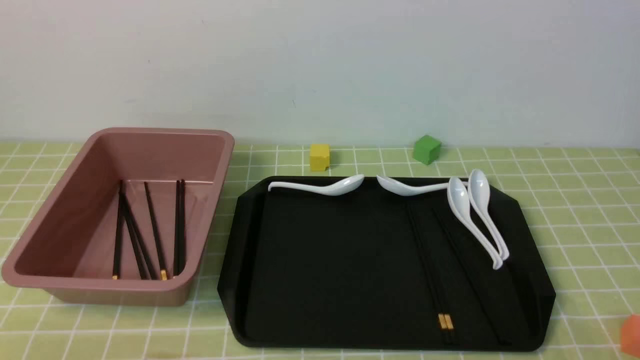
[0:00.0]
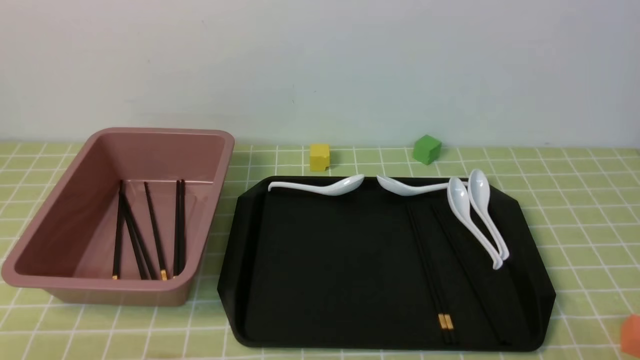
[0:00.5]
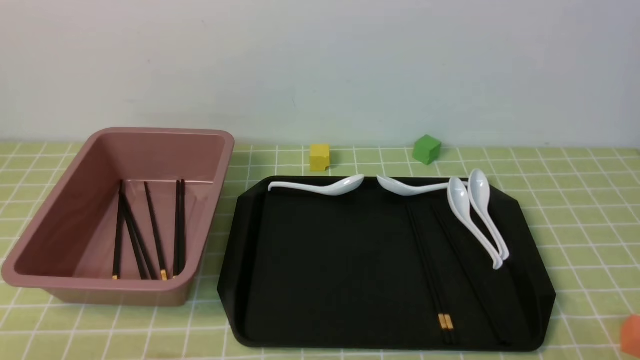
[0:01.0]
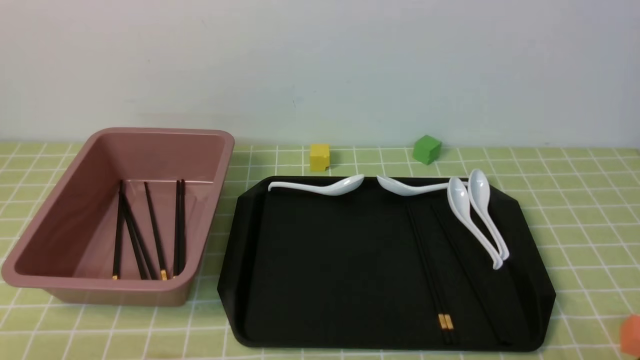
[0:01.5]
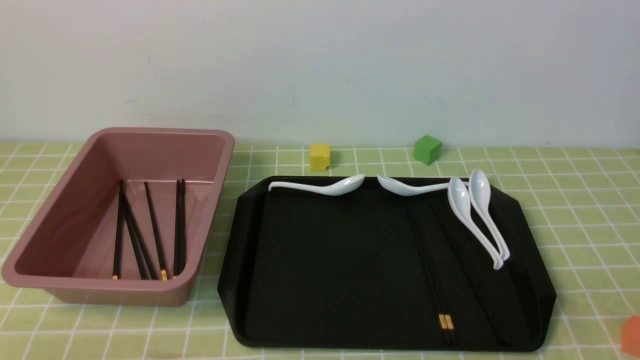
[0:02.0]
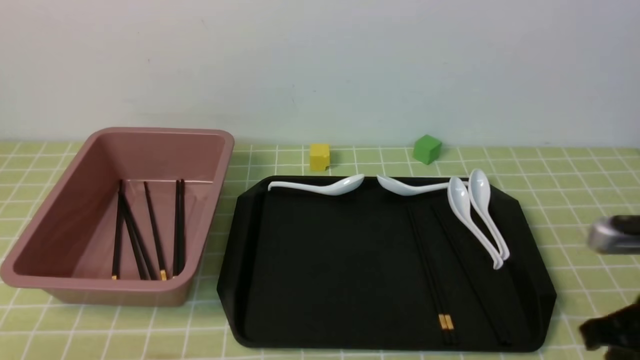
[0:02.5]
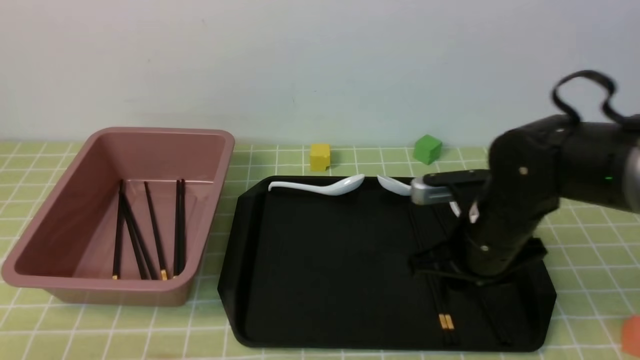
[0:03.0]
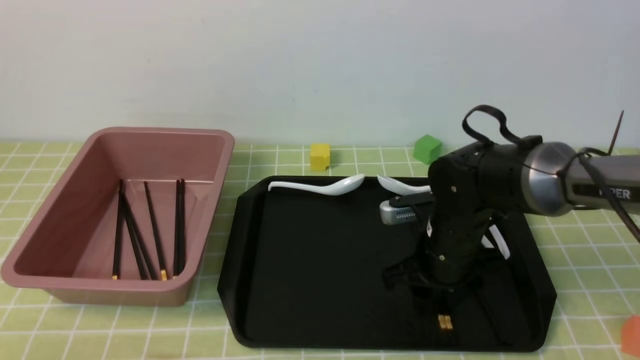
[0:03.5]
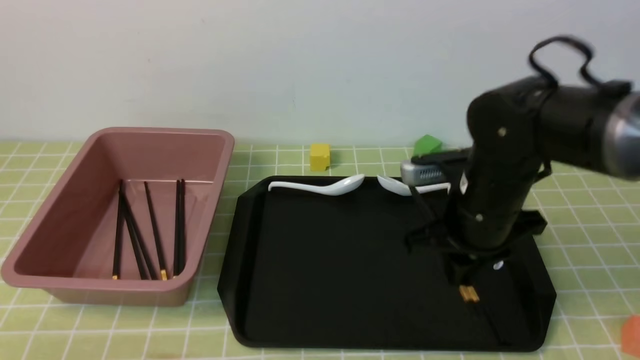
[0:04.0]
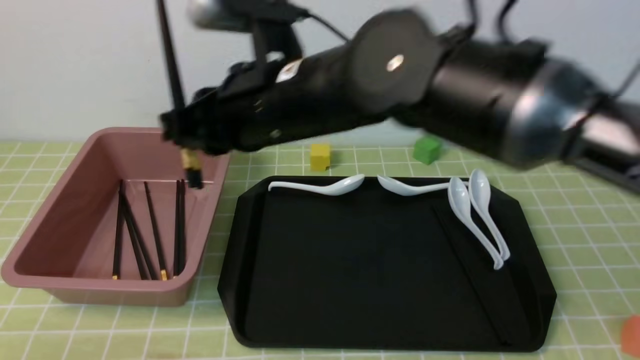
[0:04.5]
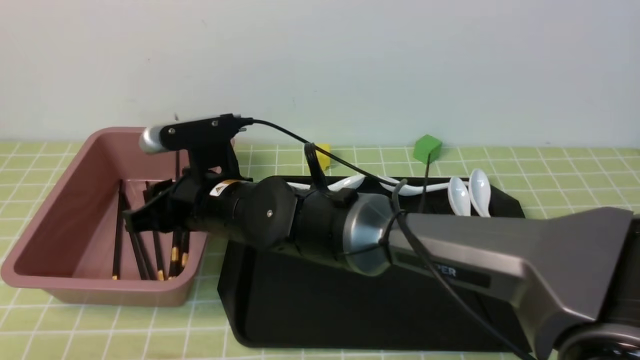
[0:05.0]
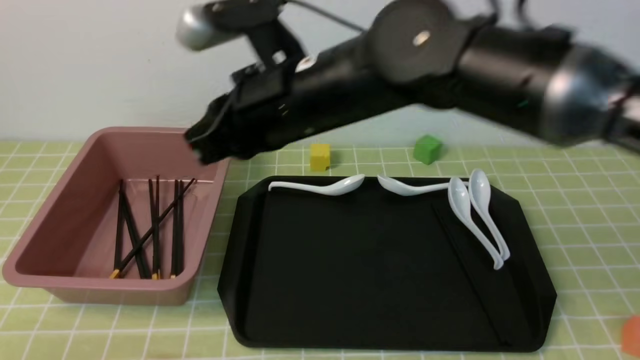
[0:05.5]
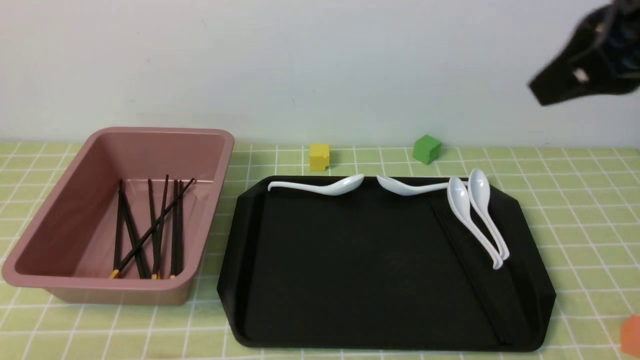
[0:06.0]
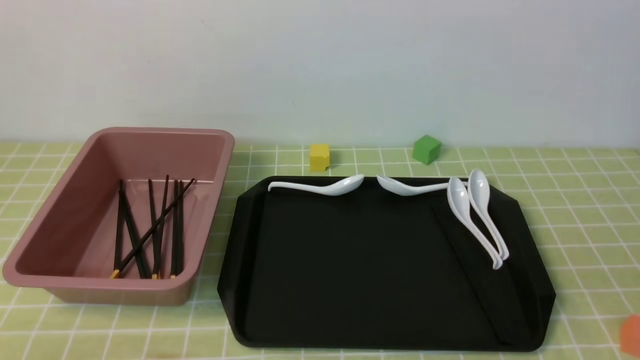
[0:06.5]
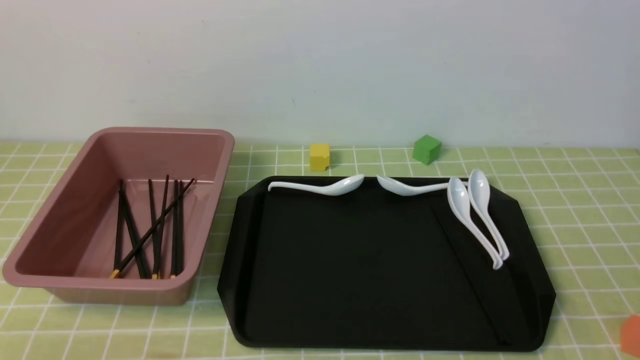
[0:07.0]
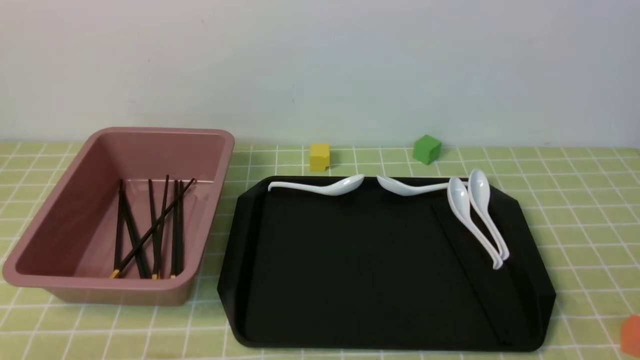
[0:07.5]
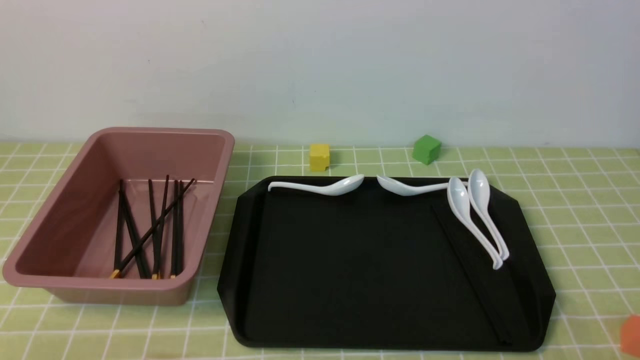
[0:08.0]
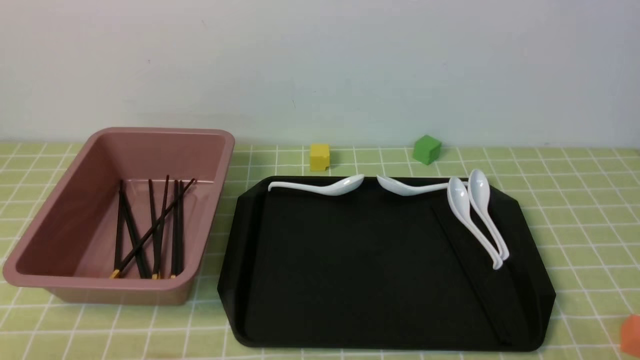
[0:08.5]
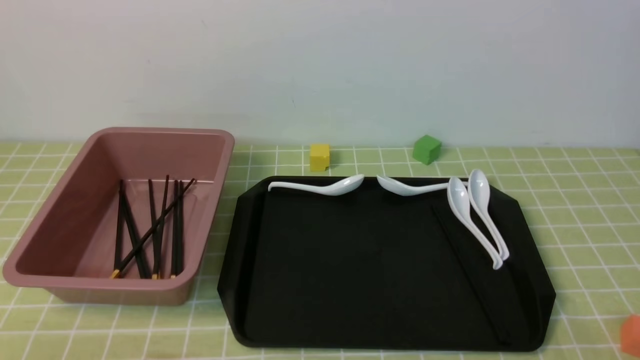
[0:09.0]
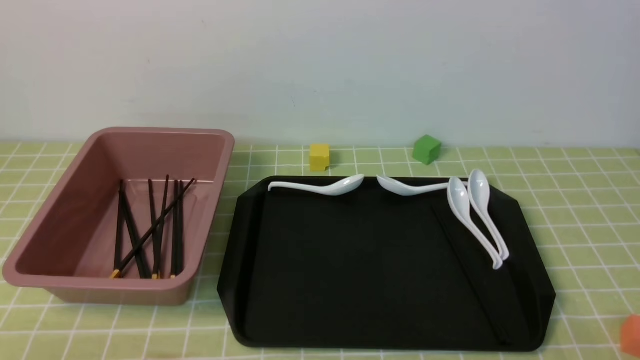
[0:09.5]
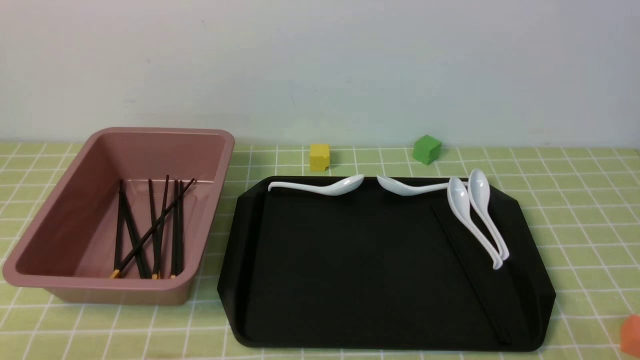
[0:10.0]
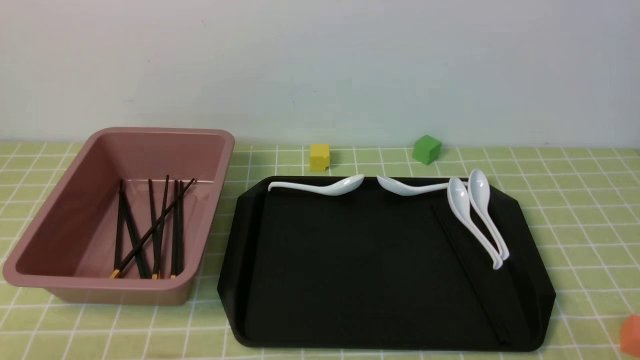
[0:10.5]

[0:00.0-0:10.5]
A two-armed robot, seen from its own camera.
Step, 0:00.0 to 0:04.0: use the right arm to grab a pair of chopsticks.
Step, 0:04.5 to 0:05.0: use the right arm to put the chopsticks into the lunch box.
0:02.0 to 0:04.0: The right gripper heads forward and to the left, covering about 30 cm, and closes, then reopens.
0:04.0 to 0:06.5: The right gripper shifts some 30 cm backward, upward and to the right, and closes.
